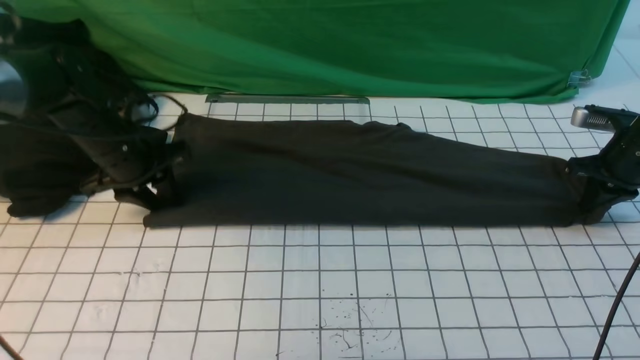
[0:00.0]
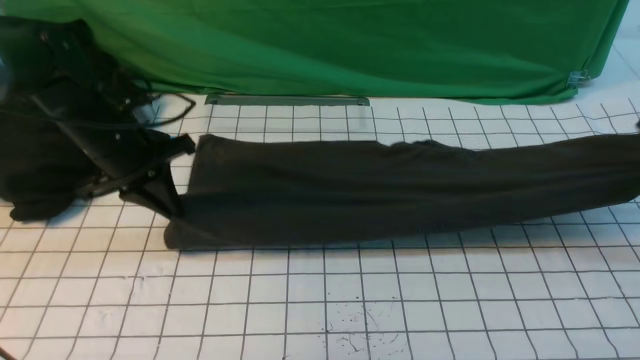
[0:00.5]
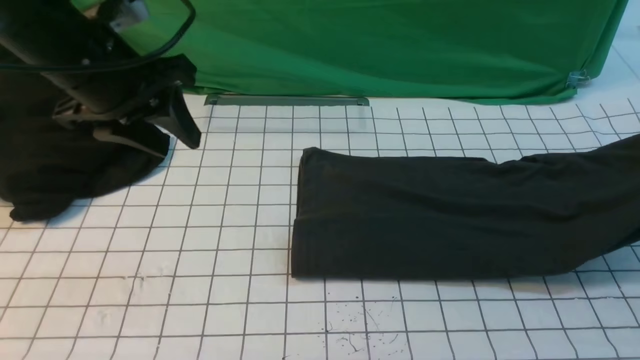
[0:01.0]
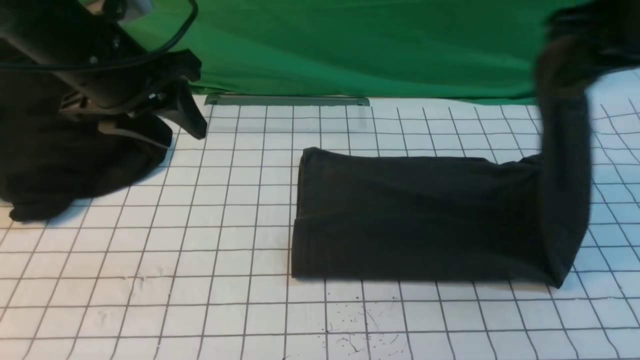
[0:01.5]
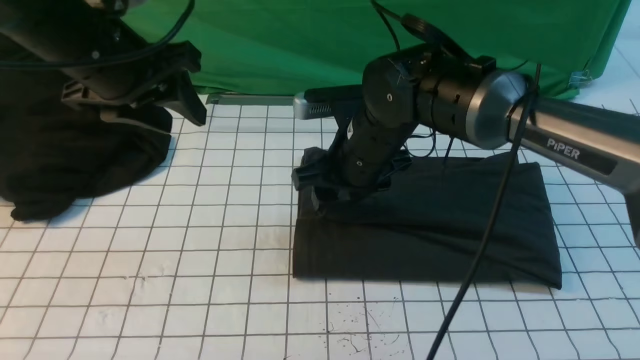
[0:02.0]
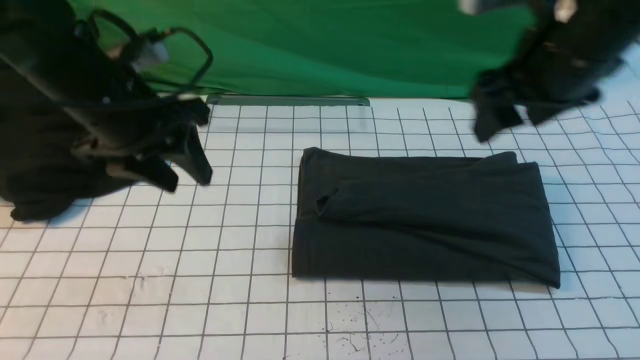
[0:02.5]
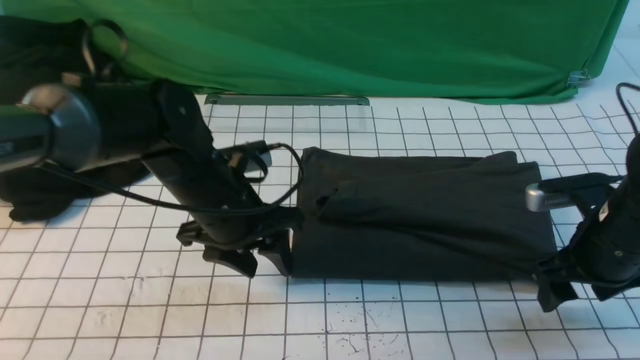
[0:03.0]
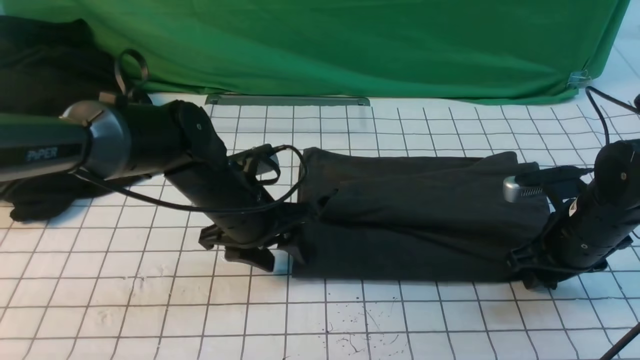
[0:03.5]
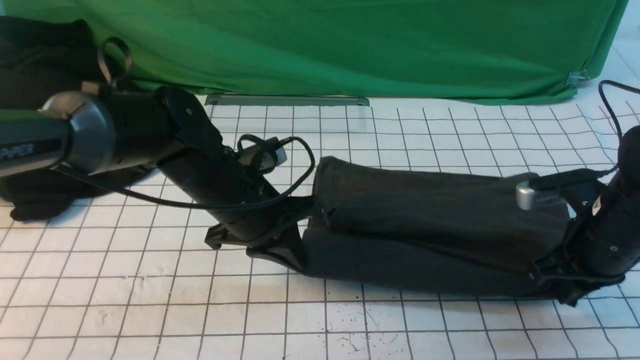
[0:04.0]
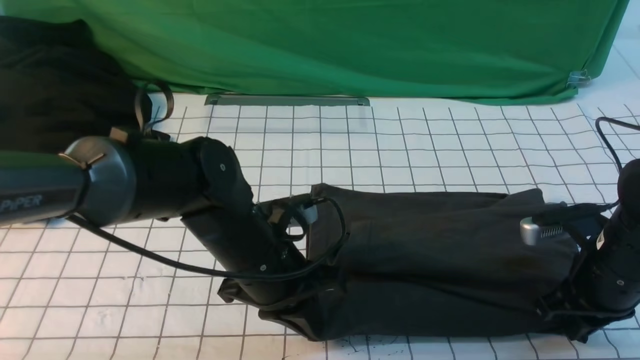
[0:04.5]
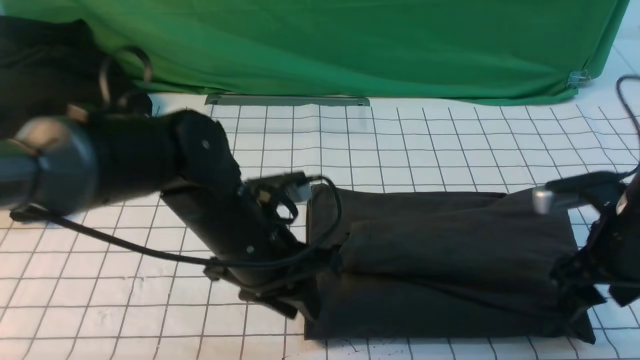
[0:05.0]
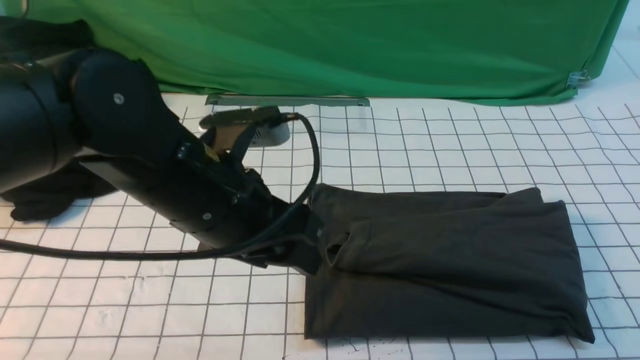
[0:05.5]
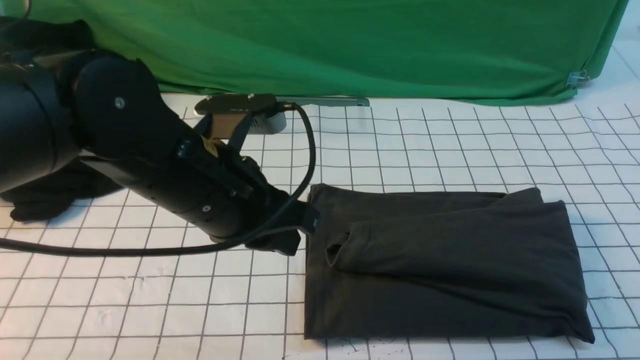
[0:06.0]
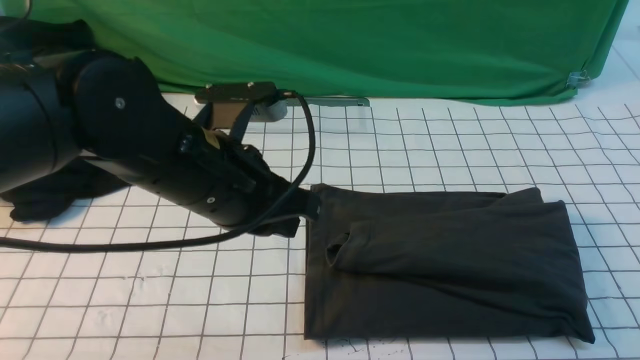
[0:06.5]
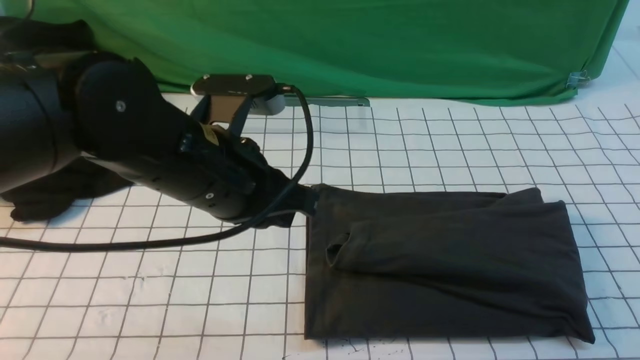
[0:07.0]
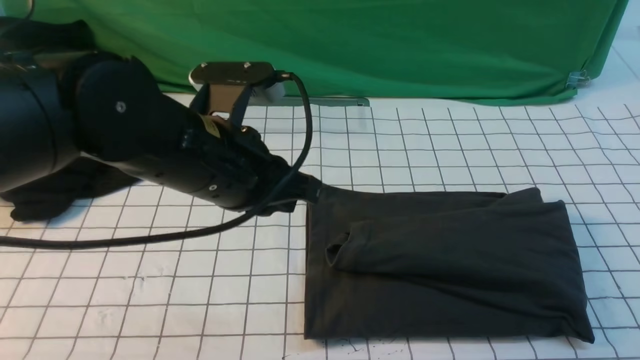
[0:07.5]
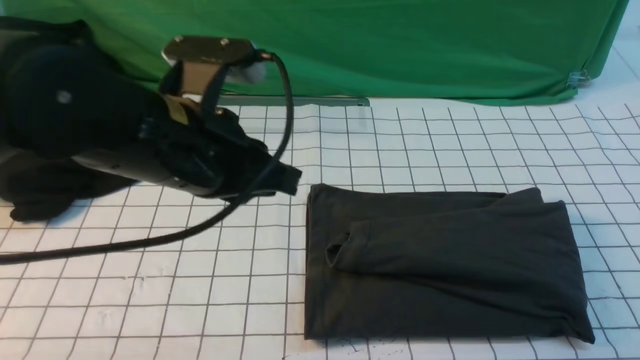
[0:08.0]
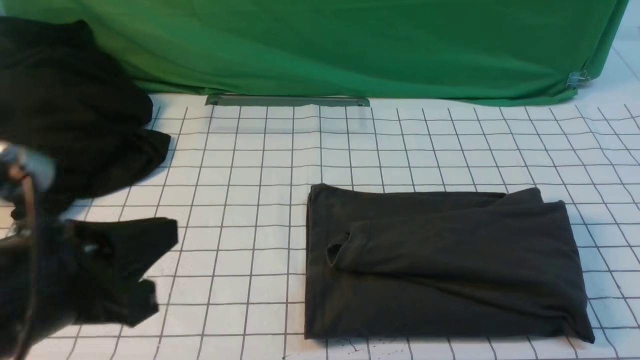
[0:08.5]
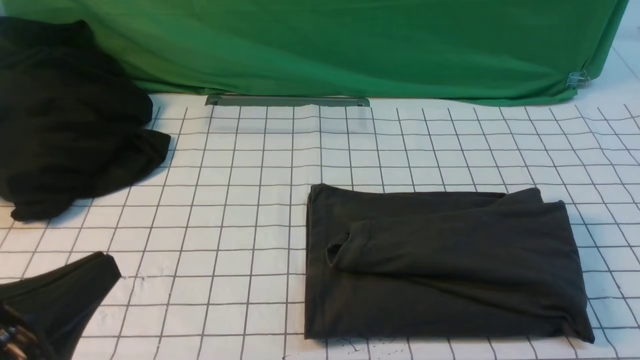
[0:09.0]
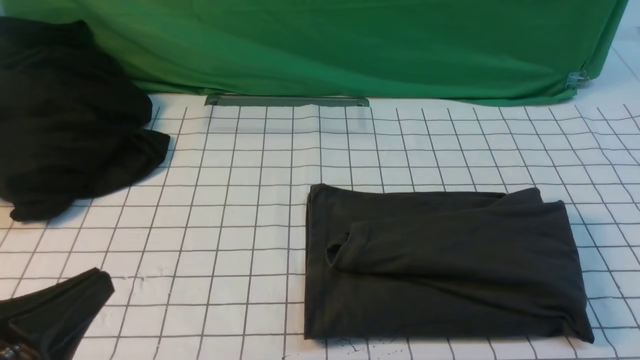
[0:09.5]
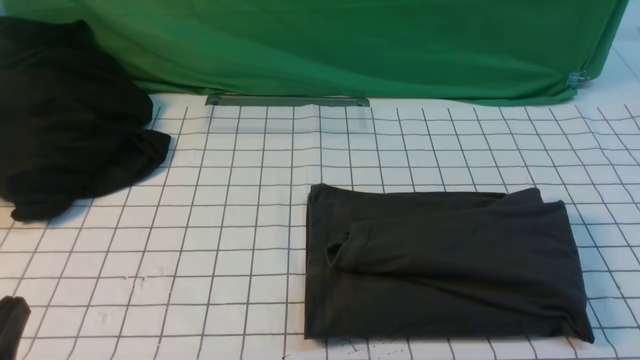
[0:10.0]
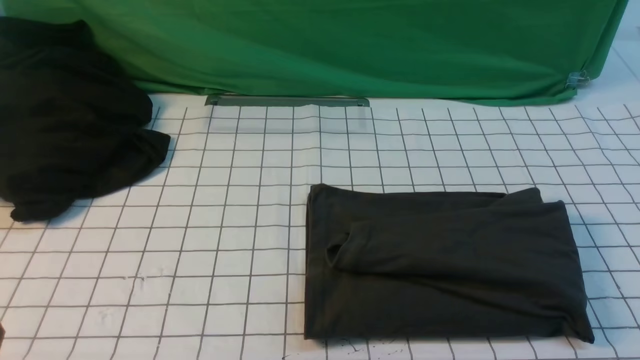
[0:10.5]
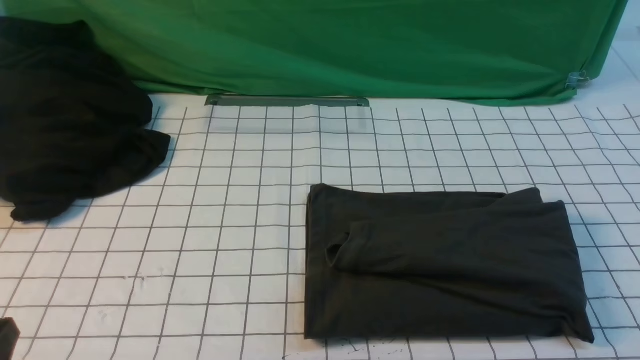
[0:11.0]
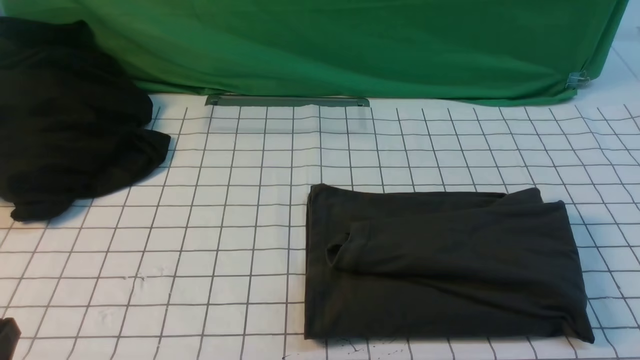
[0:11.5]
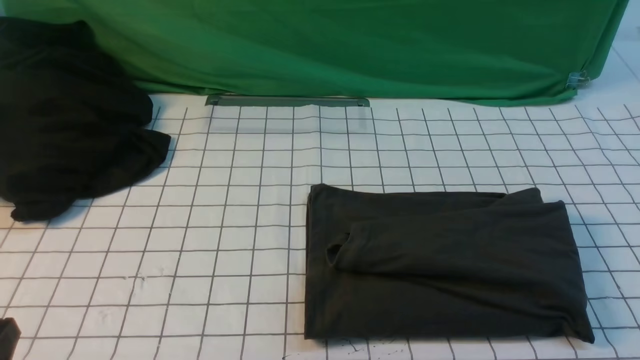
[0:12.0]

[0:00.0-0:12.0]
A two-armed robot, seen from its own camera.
Step, 0:01.0 to 0:02.0: use the right arm to drag the right edge of the fabric to the left and folds it over the left edge.
0:00.0 to 0:02.0: The left gripper travels upward and backward by approximately 20 cm; the right gripper travels to the left by approximately 35 cm, and opens.
0:02.0 to 0:04.0: The right gripper shifts some 20 cm to the right, and closes; the left gripper is displaced downward and to the right by approximately 20 cm, and closes up.
0:04.0 to 0:06.0: The left gripper goes about 15 cm upward and backward, and opens and closes again; the right gripper moves backward and upward, roughly 30 cm, and opens and closes again.
0:06.0 to 0:08.0: The left gripper goes about 5 cm upward. Meanwhile the right gripper shifts roughly 15 cm downward.
0:08.0 to 0:10.0: The left gripper heads backward, to the left and downward, covering approximately 25 cm.

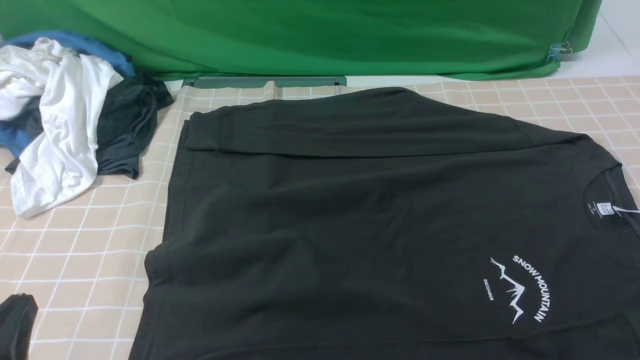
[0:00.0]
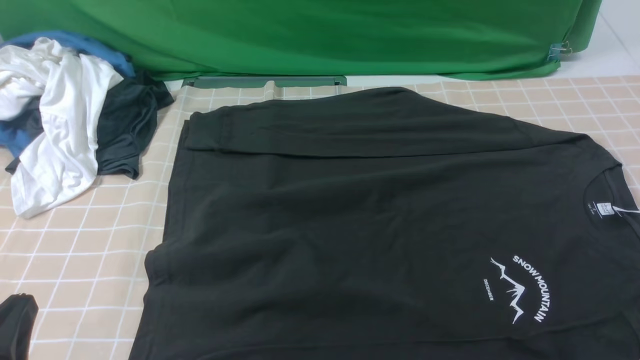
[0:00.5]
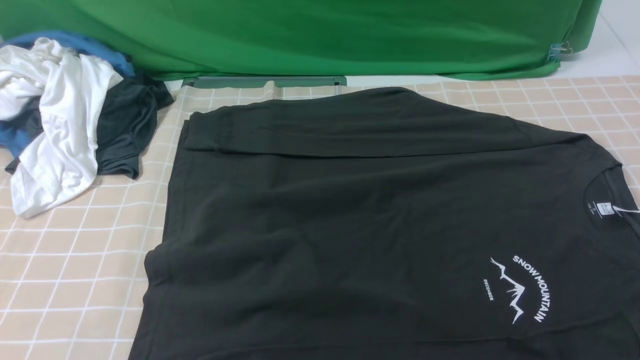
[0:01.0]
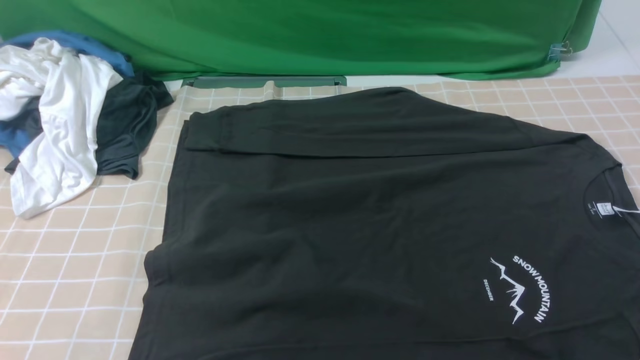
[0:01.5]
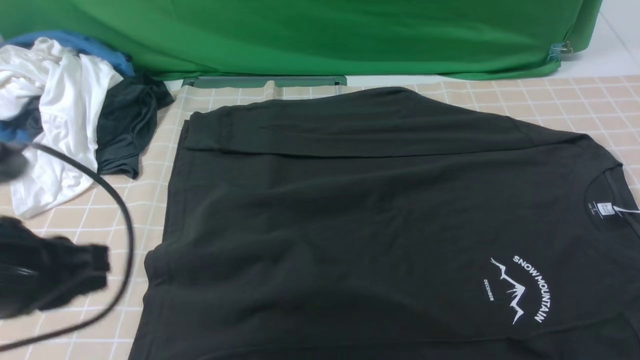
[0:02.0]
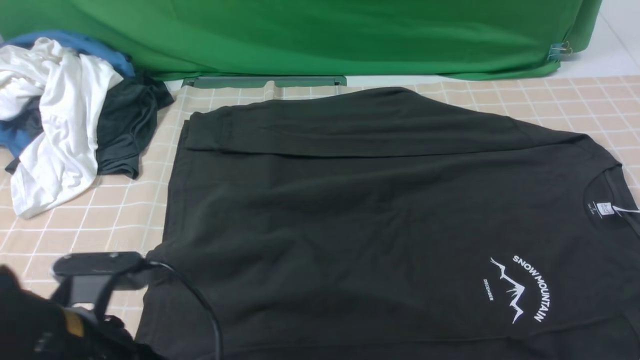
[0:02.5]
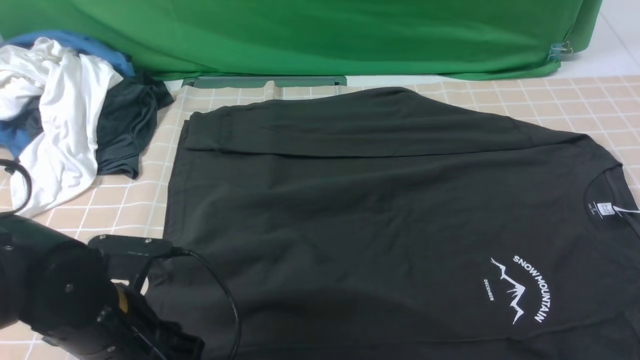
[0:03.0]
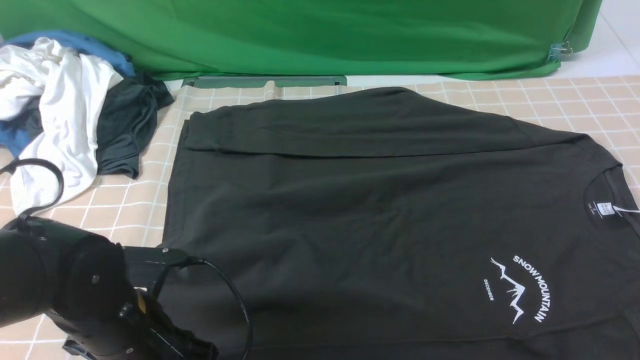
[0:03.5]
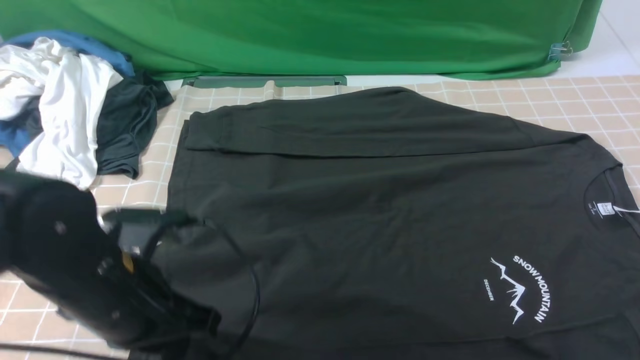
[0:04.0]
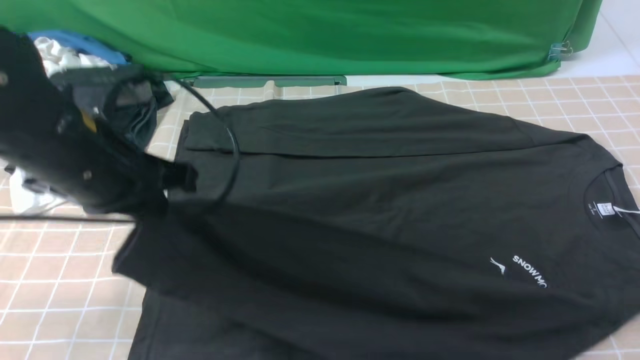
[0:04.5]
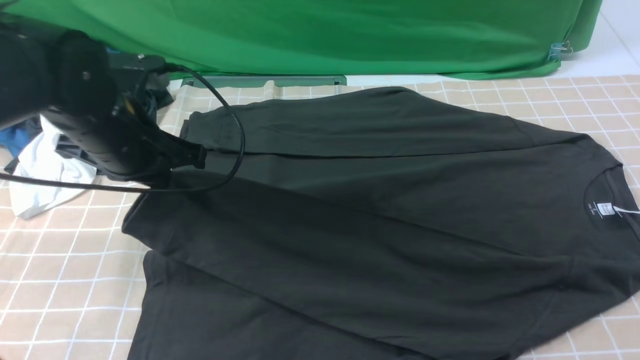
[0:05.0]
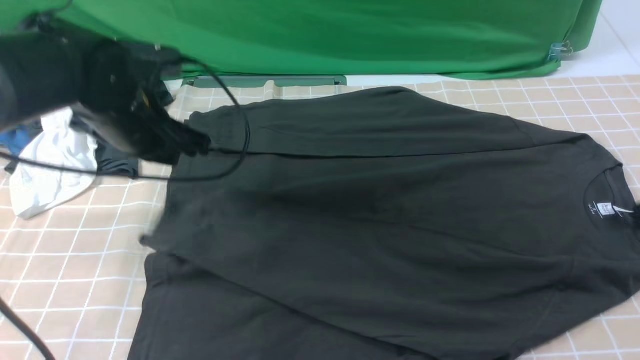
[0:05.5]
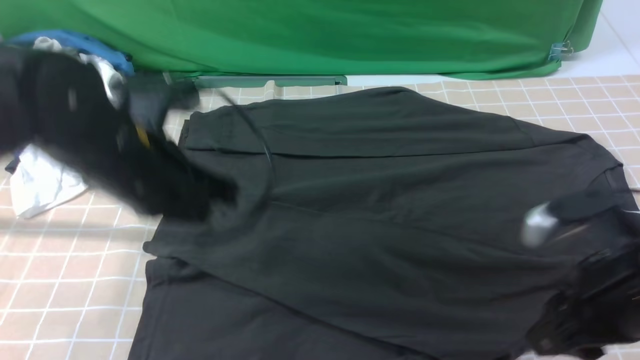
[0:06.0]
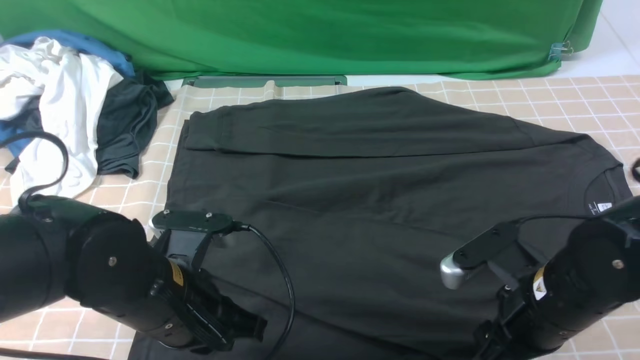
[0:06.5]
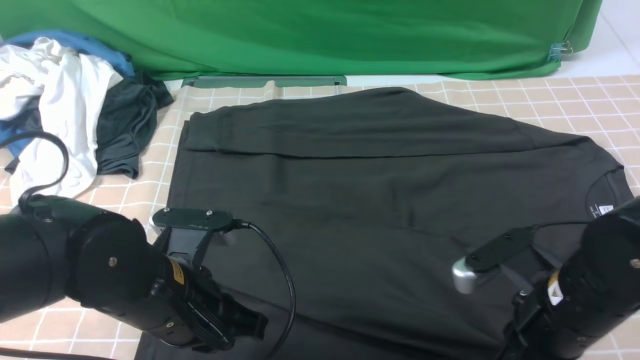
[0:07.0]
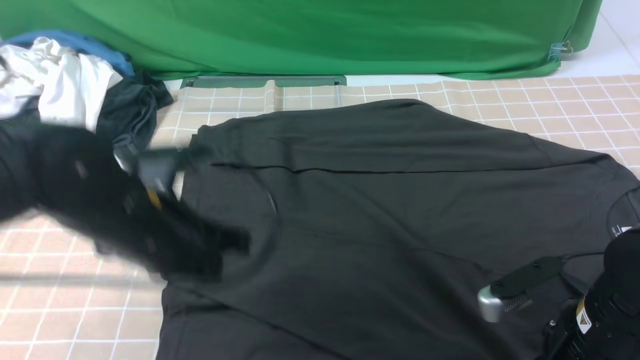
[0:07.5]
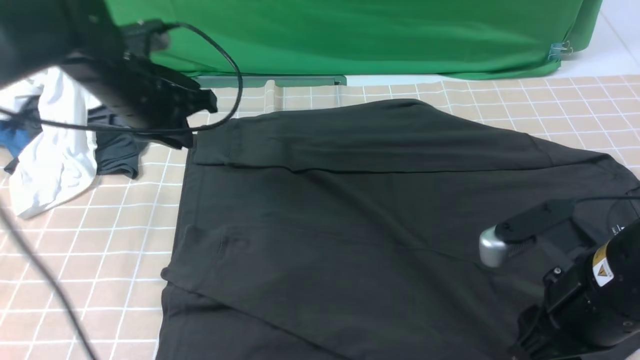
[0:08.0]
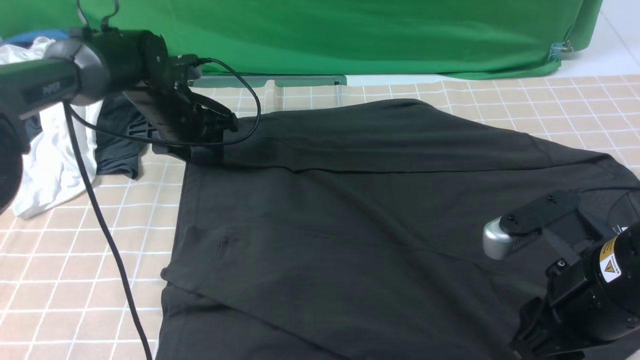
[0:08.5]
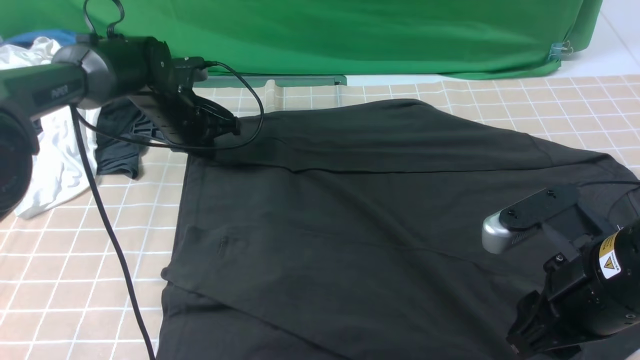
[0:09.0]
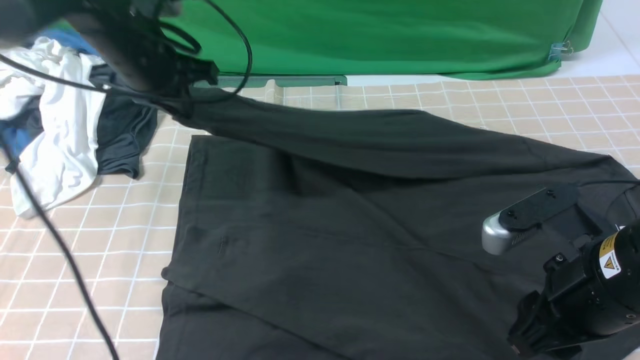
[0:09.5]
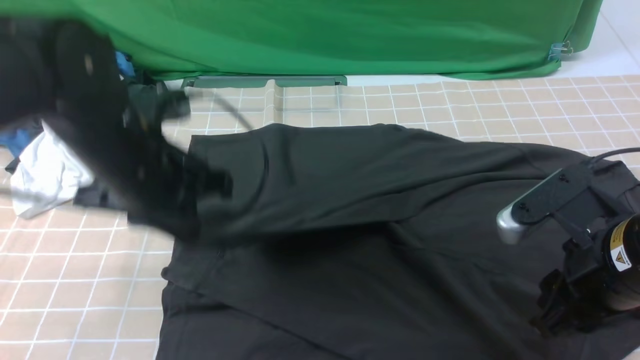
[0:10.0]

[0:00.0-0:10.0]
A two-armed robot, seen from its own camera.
Step, 0:00.0 to 0:03.5: use the left arm to clamp the cuff closest to it.
Step, 0:04.0 to 0:05.5: use the left arm to drag and place the cuff at the centered position on the left edge of the fabric.
Step, 0:06.0 to 0:09.0: use the left arm to clamp the cuff farthest from it.
0:00.0 to 0:02.0: The left gripper moves forward and upward, about 15 cm.
0:02.0 to 0:04.0: The left gripper moves to the right and downward, approximately 10 cm, and opens, then closes once more.
0:04.0 to 0:06.0: The left gripper is displaced forward by about 5 cm, and opens and closes again. The right gripper is displaced downward, to the left and forward by about 15 cm, and opens up.
0:06.0 to 0:08.0: The right gripper closes and opens again; the left gripper moves forward, roughly 15 cm.
0:08.0 to 0:10.0: The left gripper is displaced backward by some 10 cm, and opens and closes again.
